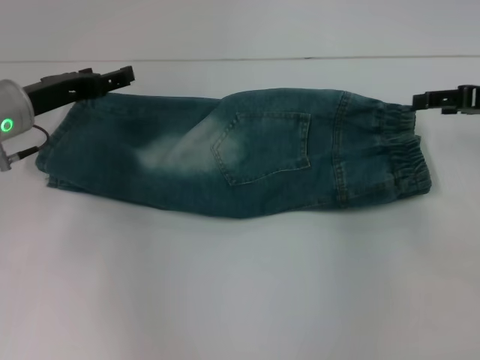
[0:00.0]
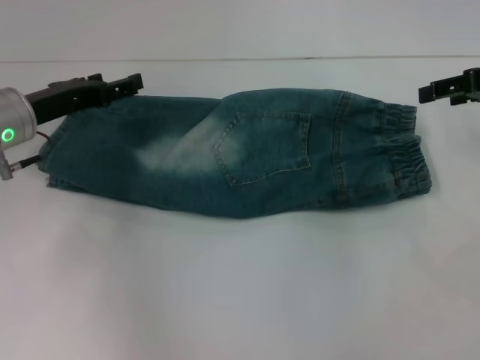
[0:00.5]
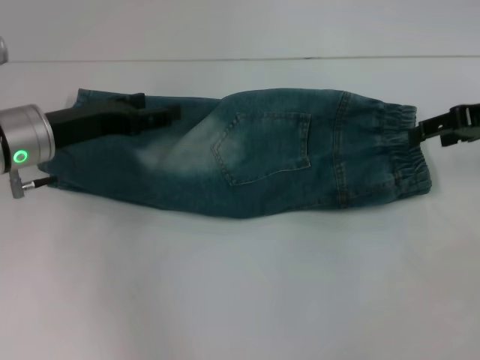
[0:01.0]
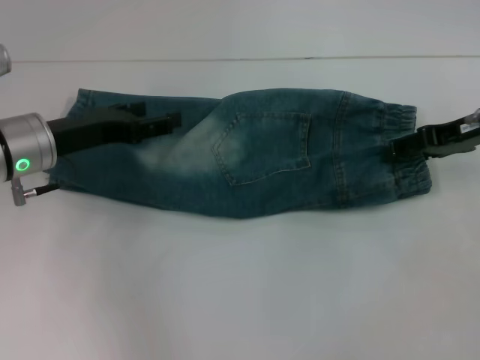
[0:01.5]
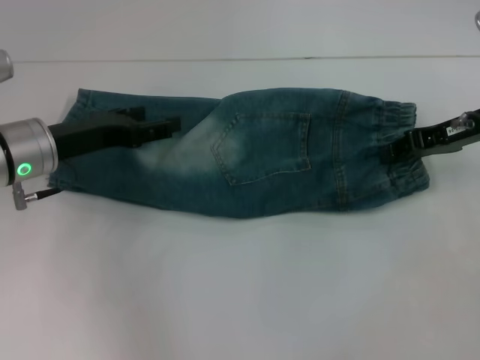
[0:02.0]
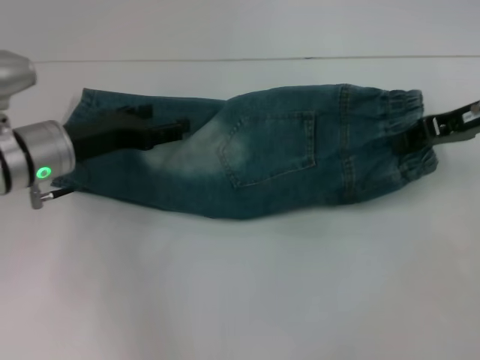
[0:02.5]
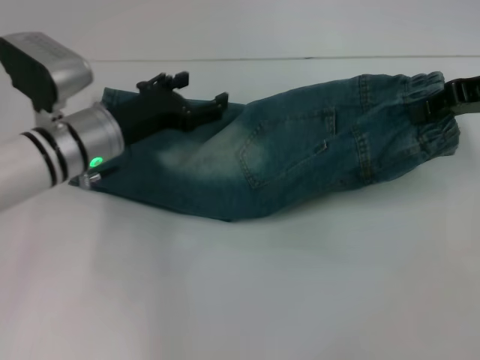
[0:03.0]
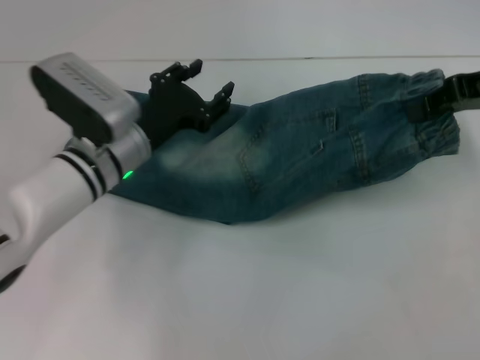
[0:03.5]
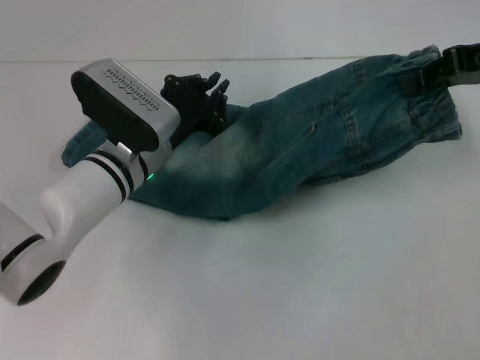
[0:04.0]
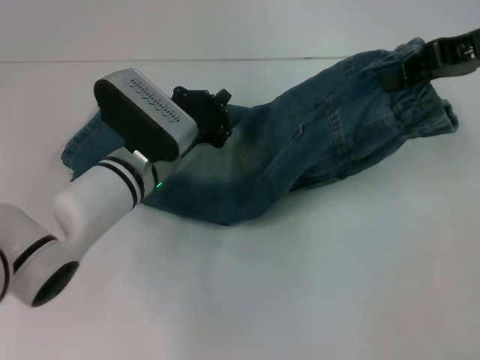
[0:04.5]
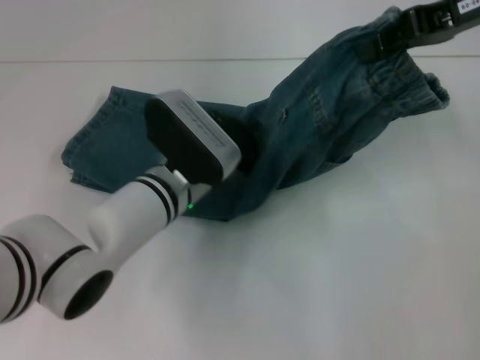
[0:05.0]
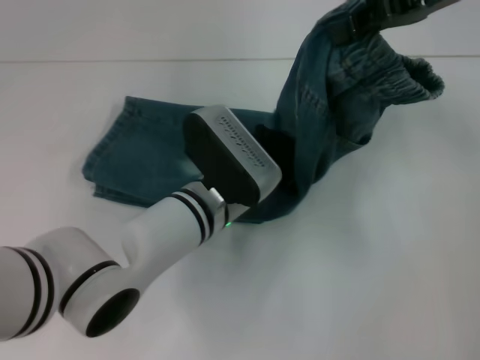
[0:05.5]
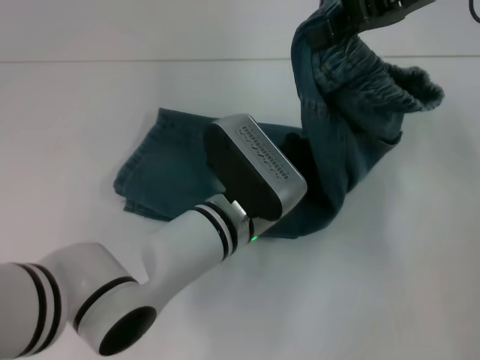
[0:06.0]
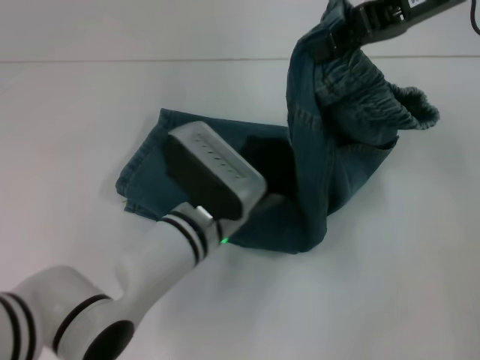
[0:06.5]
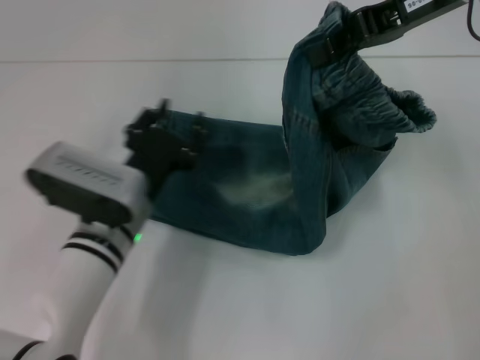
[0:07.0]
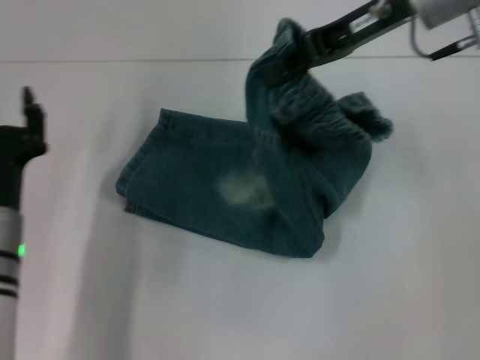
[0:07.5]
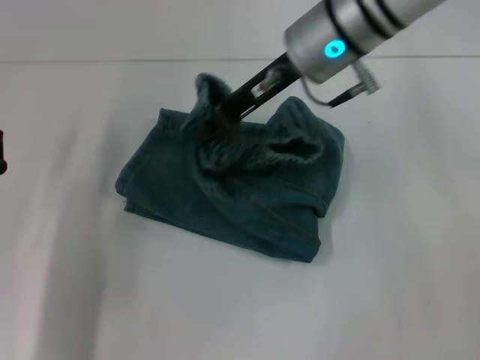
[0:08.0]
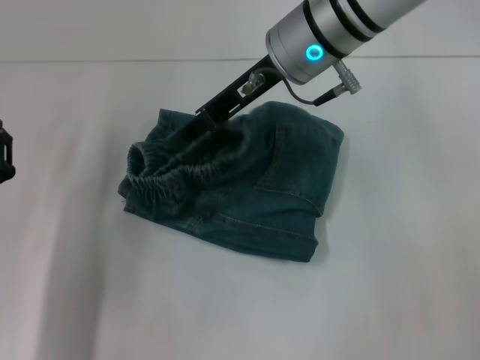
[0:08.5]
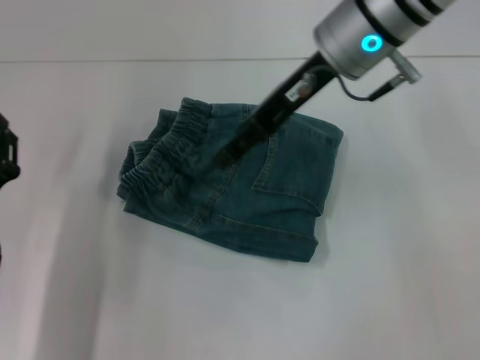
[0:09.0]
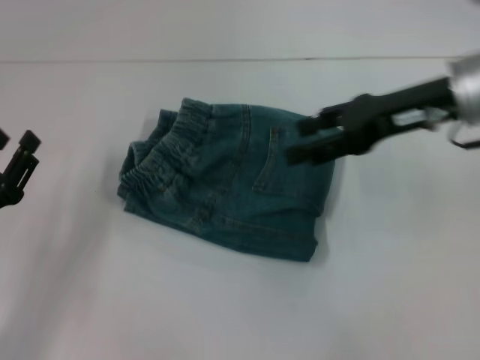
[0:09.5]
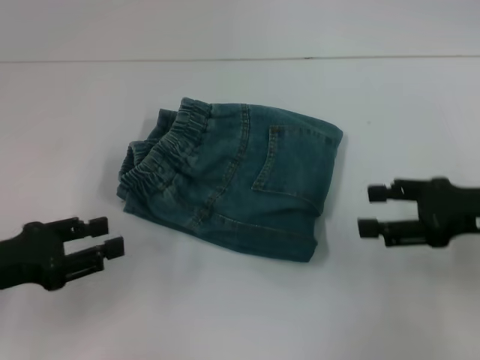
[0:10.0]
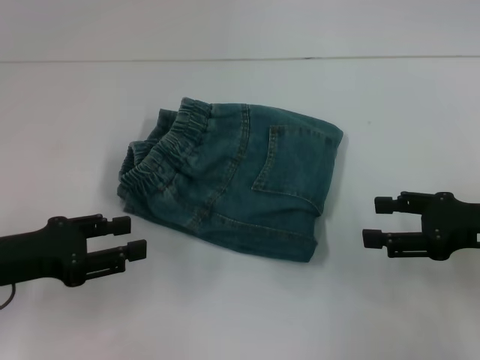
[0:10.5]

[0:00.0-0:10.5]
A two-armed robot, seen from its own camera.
Step, 0.0 to 1.5 s: Grab the waistband with your right hand.
Step, 2.0 to 6.5 s: Press the middle of the pants with your left hand.
Step, 7.0 to 9.0 s: Fold to the left with your right hand.
0.0 to 2.0 s: The right gripper is displaced to the left by roughly 5 cm, and closes its fingers.
2.0 to 4.0 s: The right gripper goes some 10 cm upward; the left gripper heads to the right, covering approximately 10 cm, and closes its fingers.
4.0 to 6.5 s: The right gripper travels to the left by approximately 10 cm. The left gripper goes some 10 cm to the right and backward.
6.5 to 8.5 s: The left gripper shifts about 20 cm to the left, and opens, while the right gripper moves to the left and downward, approximately 15 cm, and opens.
8.5 to 10.5 s: The right gripper goes some 30 cm to the right, backward and downward, and opens its fingers, while the left gripper moves upward, roughly 5 cm.

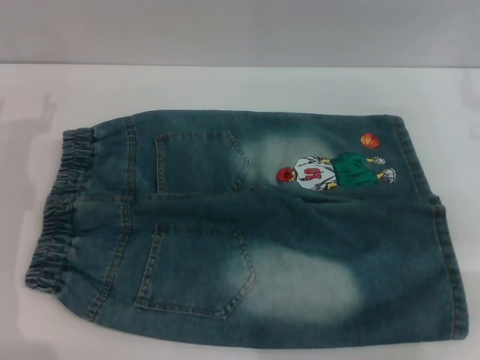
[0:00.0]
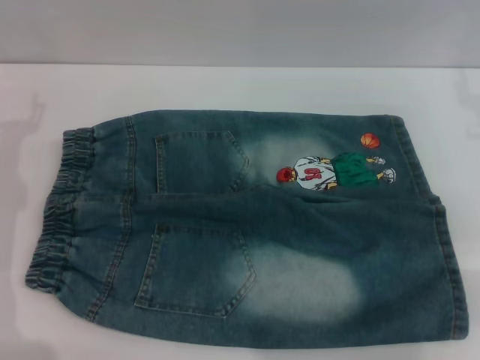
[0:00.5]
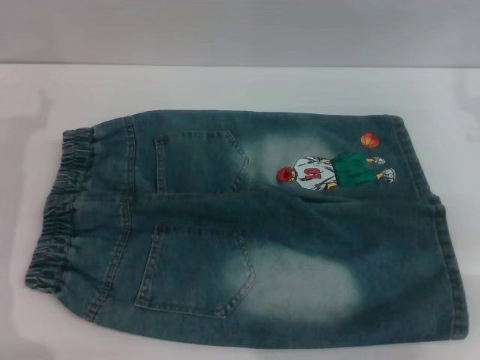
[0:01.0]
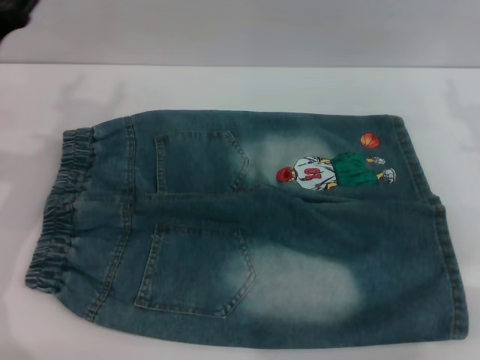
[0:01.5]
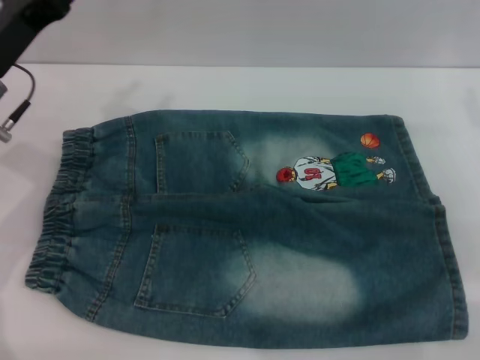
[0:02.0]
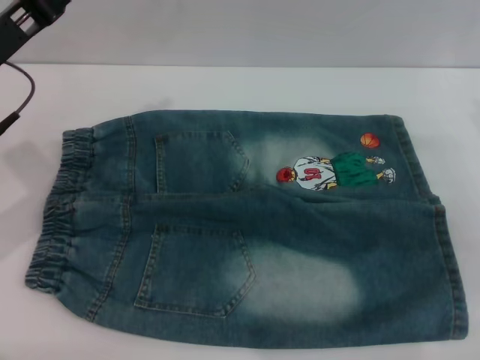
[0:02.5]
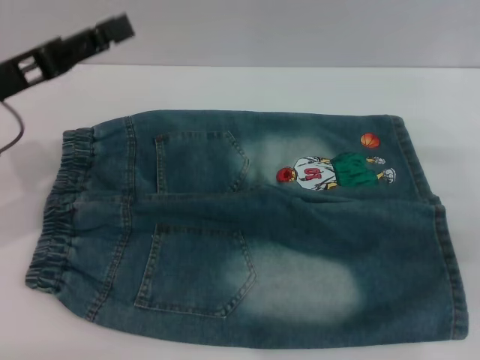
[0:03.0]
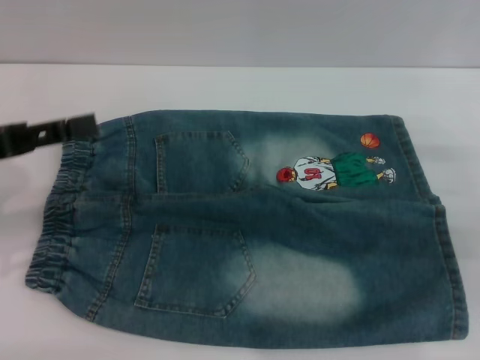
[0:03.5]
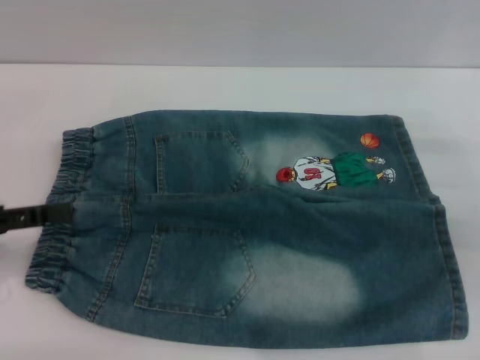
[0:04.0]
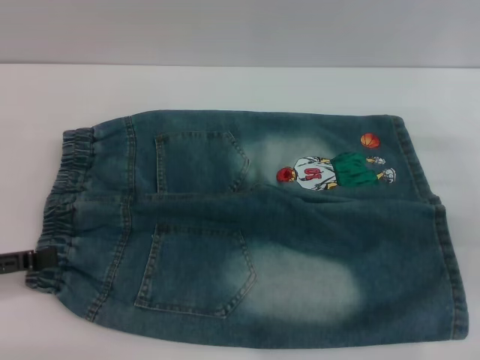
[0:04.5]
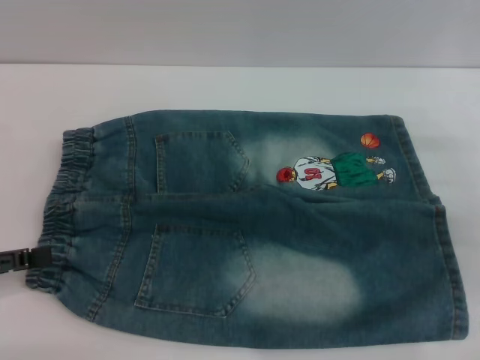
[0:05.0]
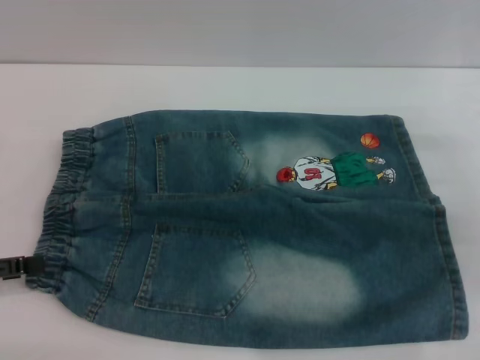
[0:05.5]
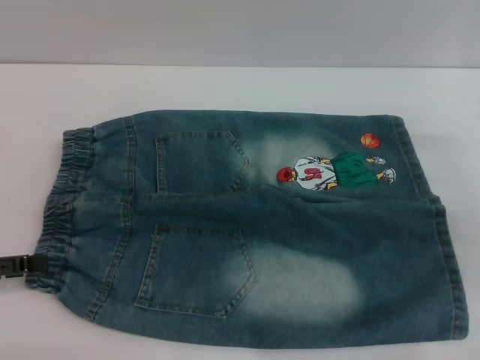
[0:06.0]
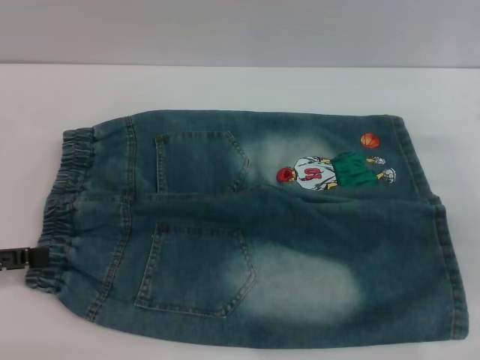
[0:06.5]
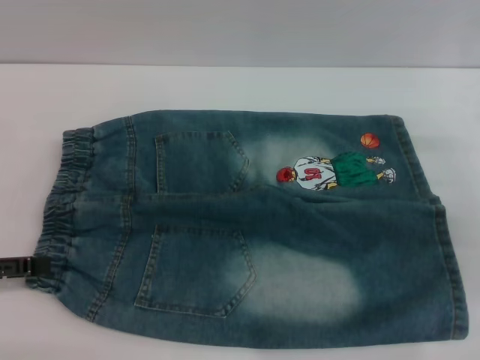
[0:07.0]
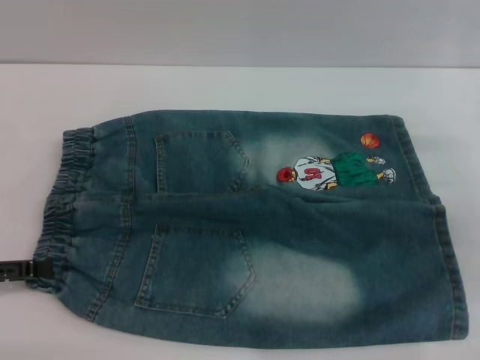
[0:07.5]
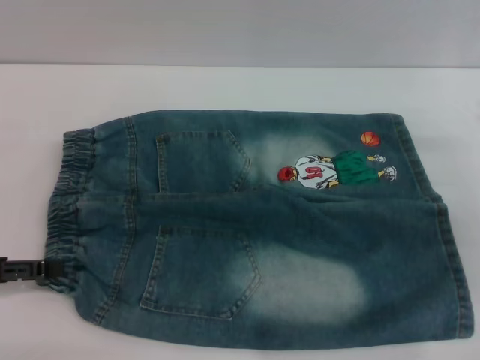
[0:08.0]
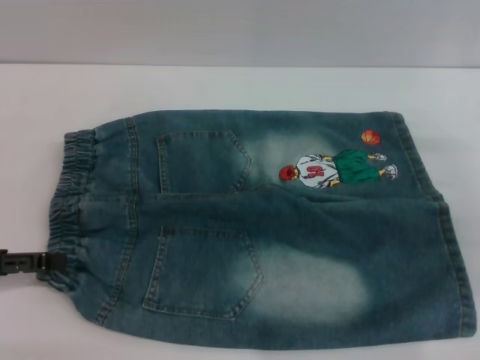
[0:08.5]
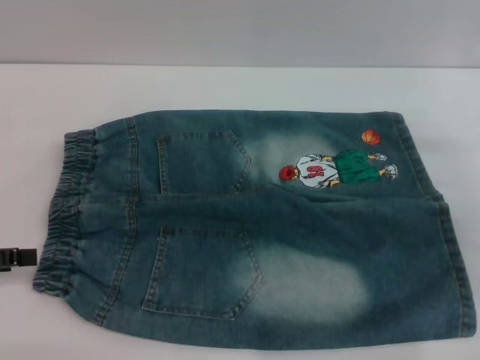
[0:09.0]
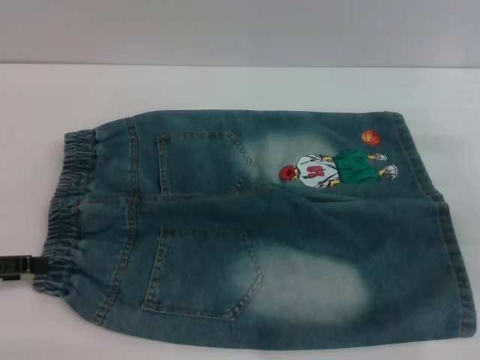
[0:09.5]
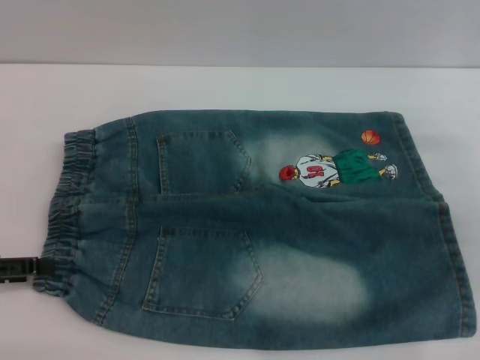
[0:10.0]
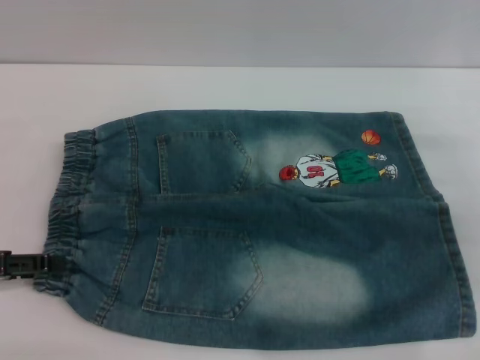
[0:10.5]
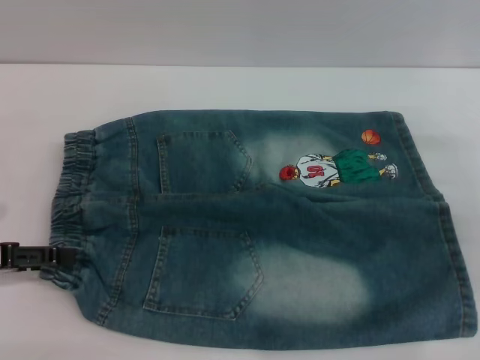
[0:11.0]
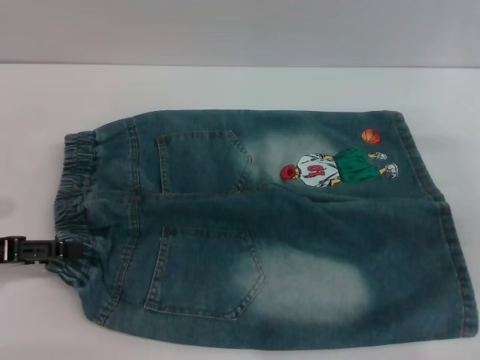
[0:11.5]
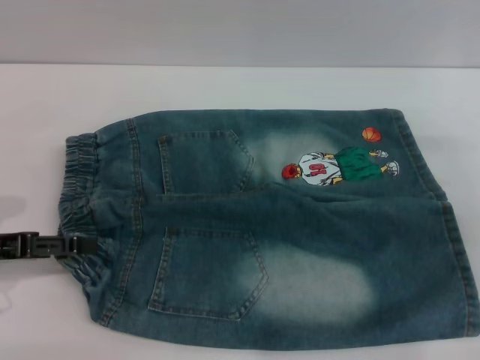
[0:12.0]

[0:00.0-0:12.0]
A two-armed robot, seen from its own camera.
0.0 to 2.0 s: The left gripper goes approximately 5 cm upward.
2.0 to 4.0 s: The left gripper heads backward and to the left, covering approximately 15 cm.
6.0 to 12.0 s: There are only small adjustments of the grippers.

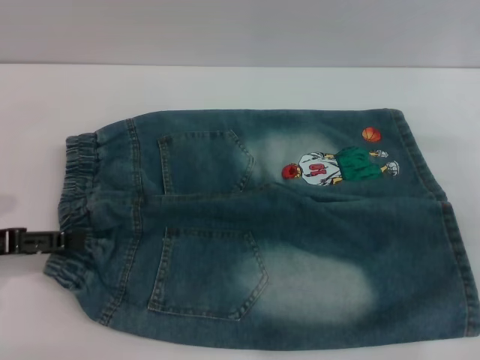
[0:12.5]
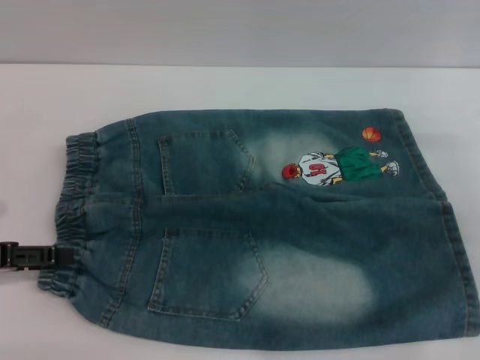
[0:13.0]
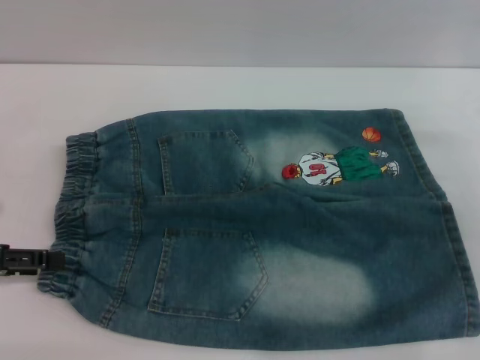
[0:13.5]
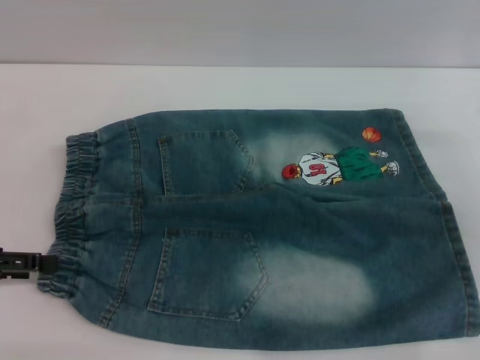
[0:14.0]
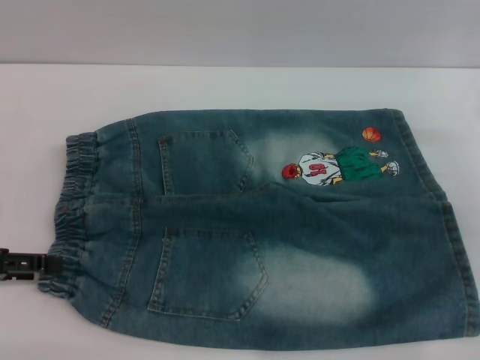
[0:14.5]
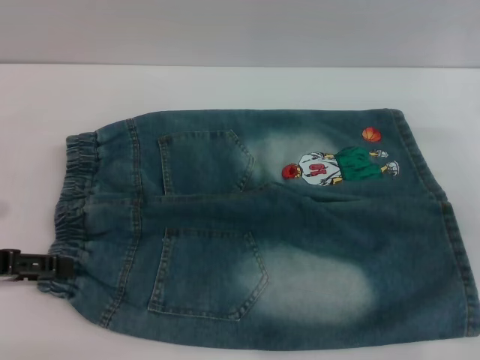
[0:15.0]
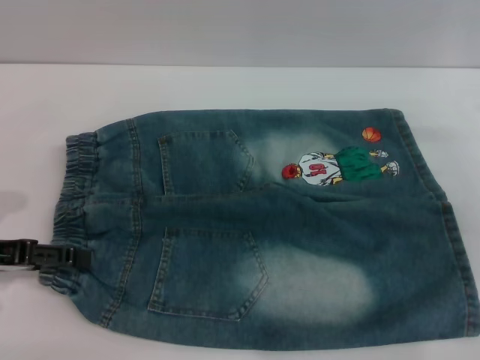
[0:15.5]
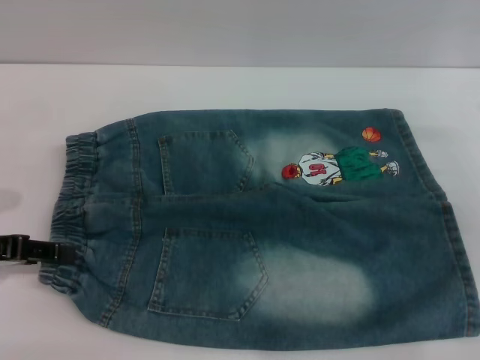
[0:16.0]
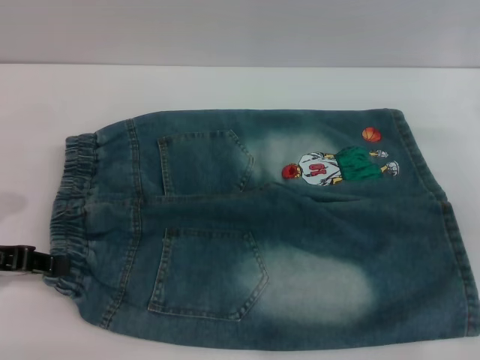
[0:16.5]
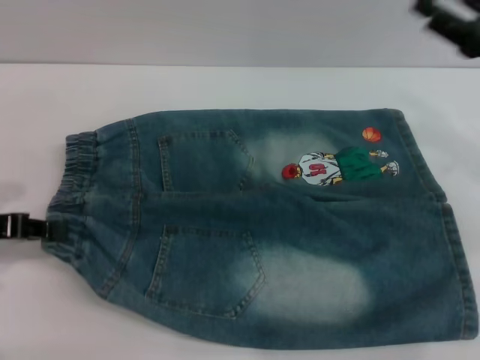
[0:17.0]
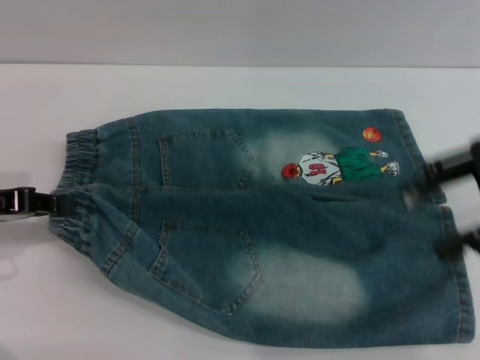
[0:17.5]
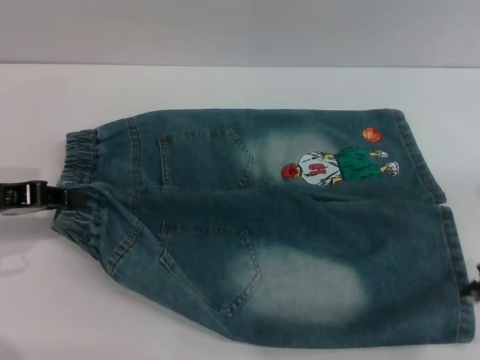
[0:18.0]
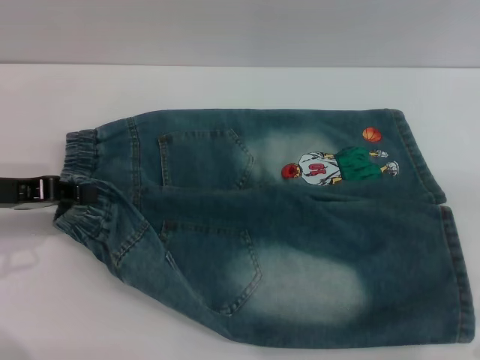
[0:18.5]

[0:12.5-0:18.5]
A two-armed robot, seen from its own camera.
12.5 to 14.5 s: There are only small adjustments of the grippers.
14.5 to 16.5 s: The left gripper closes.
16.5 to 18.5 s: The right gripper travels upward by approximately 5 cm.
